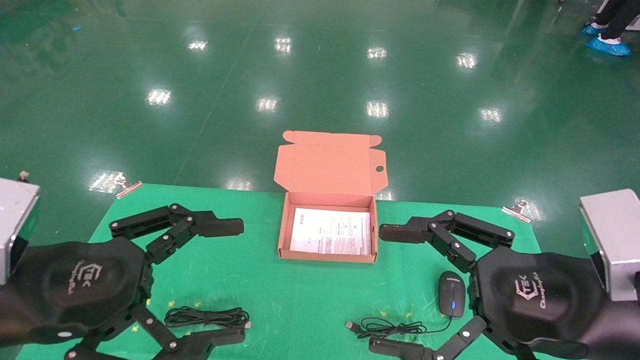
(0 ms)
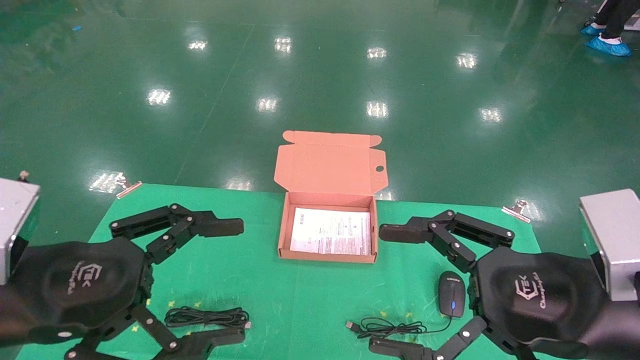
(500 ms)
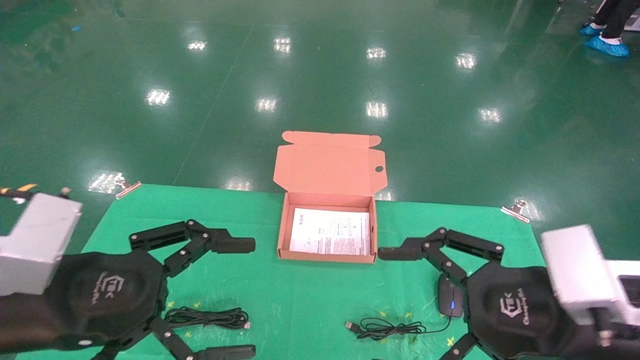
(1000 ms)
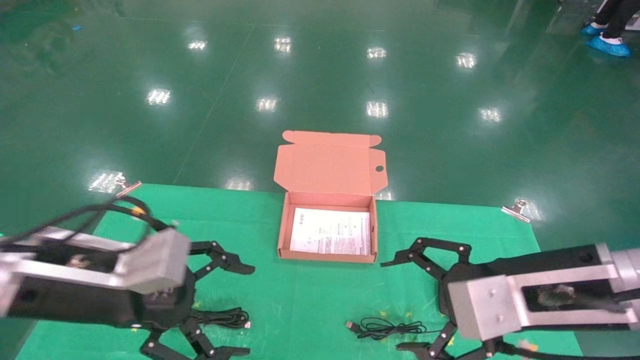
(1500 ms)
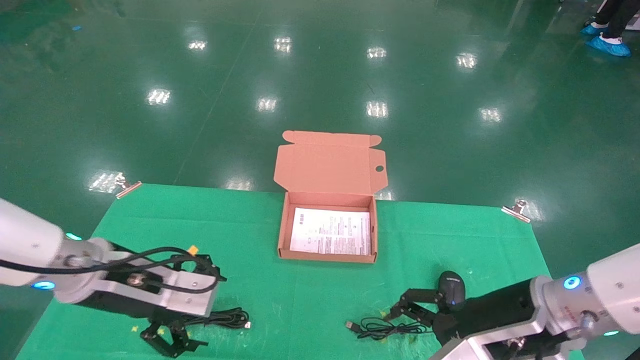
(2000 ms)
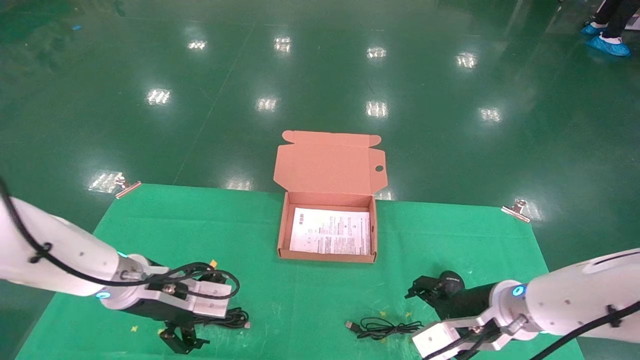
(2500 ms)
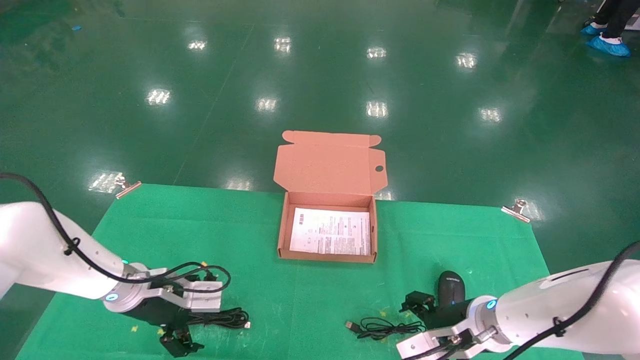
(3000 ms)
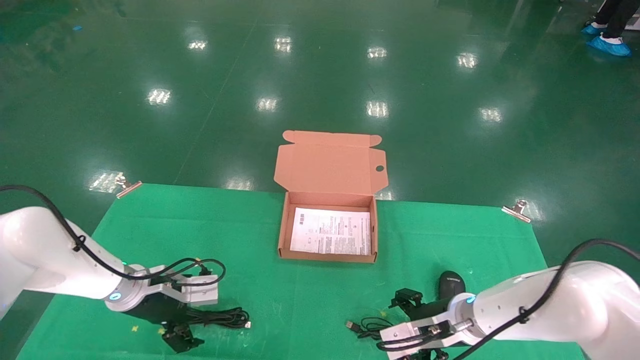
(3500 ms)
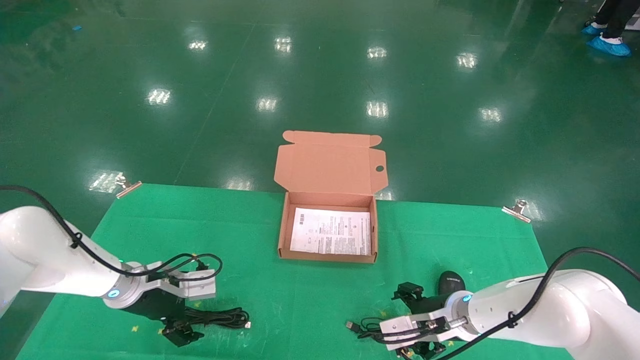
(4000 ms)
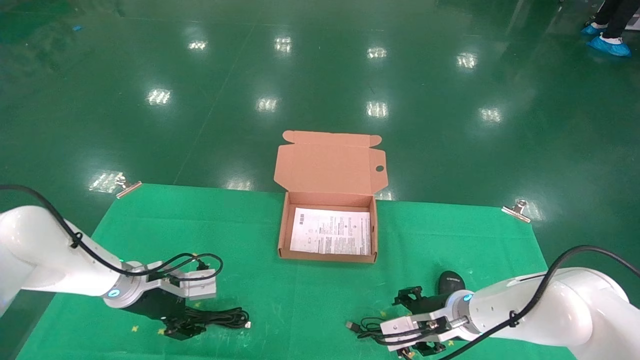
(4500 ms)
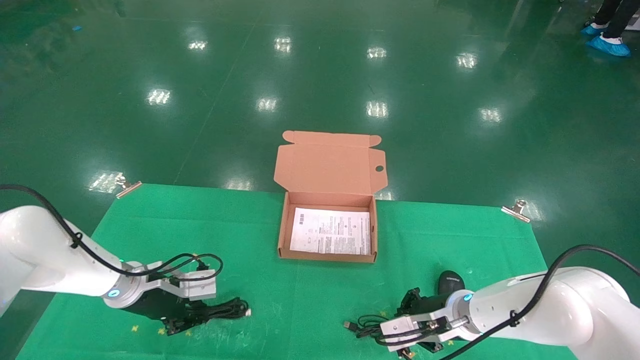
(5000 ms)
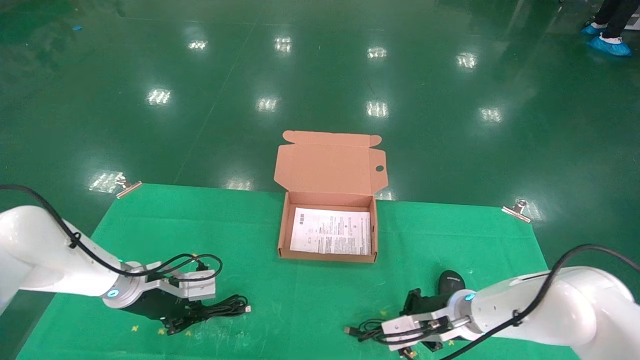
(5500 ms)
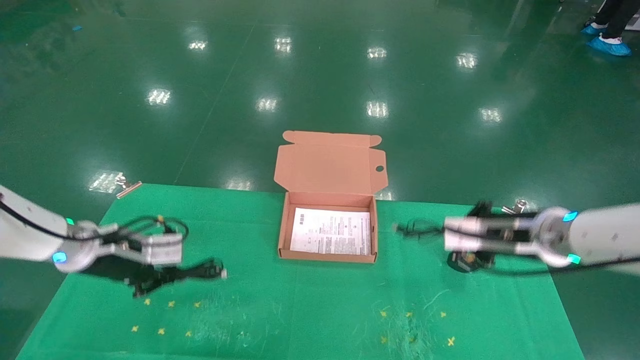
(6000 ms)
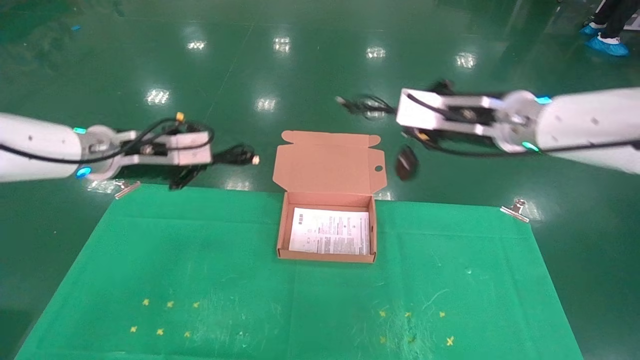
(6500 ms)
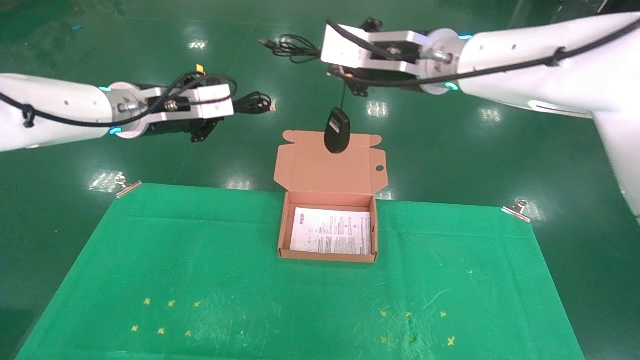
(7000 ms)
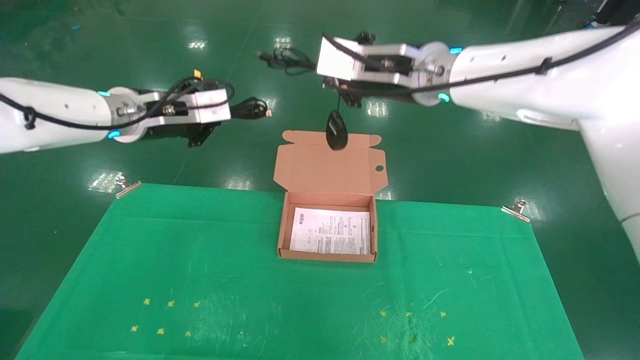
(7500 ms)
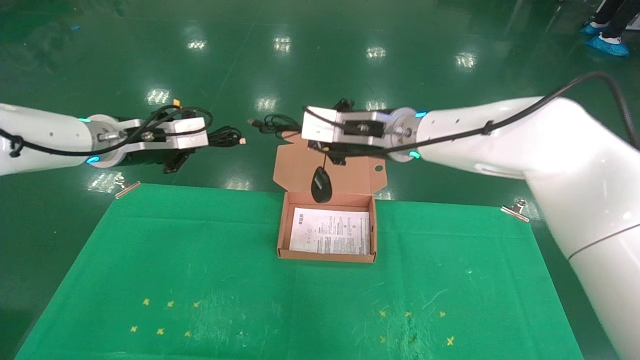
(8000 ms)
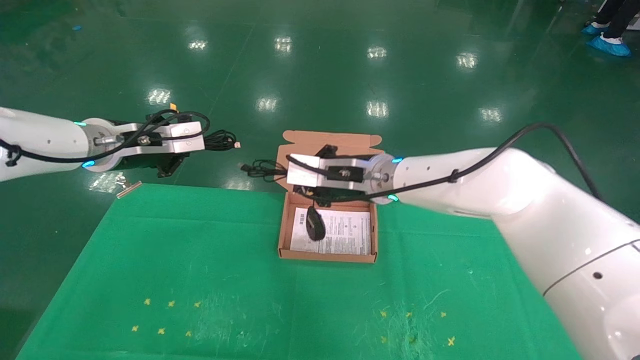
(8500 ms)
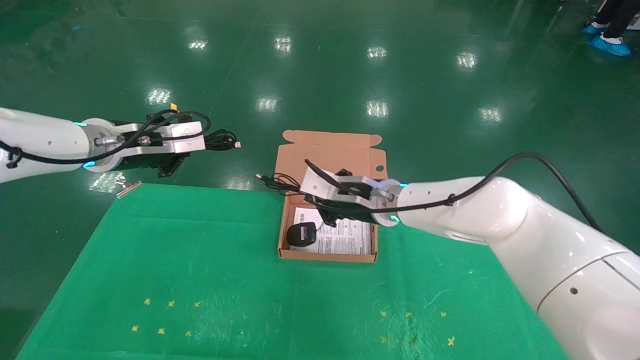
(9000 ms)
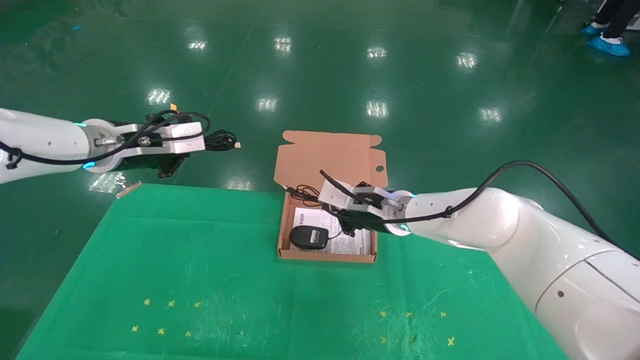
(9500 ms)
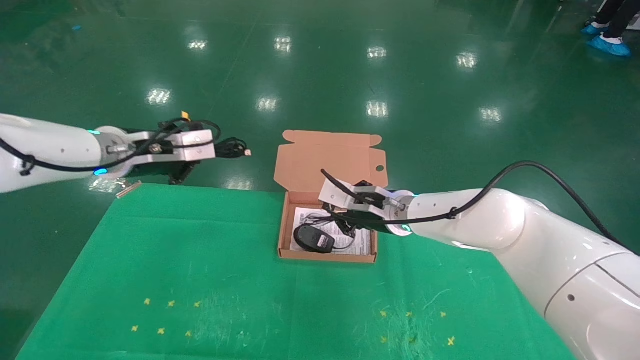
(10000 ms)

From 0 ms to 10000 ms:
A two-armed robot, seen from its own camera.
Task of the whole recording: grasp data cable left put into box grasp mouse right put into box.
Step, from 1000 ms to 5000 ms: Grab and pick up both the mouse and power cord from the accessory packaging area at the same time.
From 0 ms to 2000 ms: Both grippers travel together forward and downward, roughly 15 cm.
From 2000 ms to 4000 ms: The right gripper shifts approximately 15 cm forward and downward; the left gripper shifts roughly 15 cm forward, downward and to the left.
From 4000 ms to 6000 ms: The left gripper travels upward by about 10 cm, and closes up. Meanwhile the right gripper is displaced upward and to the right by about 15 cm, and closes its fingers.
From 6000 ms to 8000 ms: The left gripper heads upward, covering roughly 15 cm; the right gripper goes about 20 cm to the left and upward.
From 8000 ms to 10000 ms: The right gripper travels downward by roughly 15 cm.

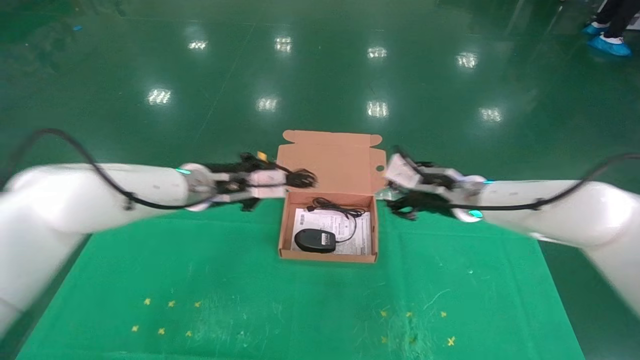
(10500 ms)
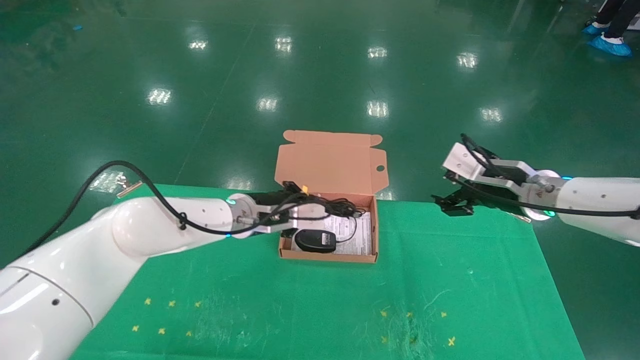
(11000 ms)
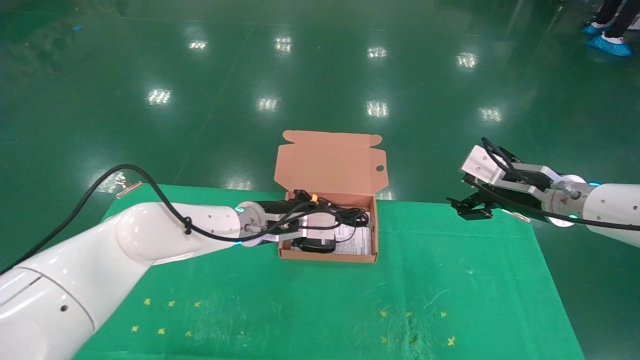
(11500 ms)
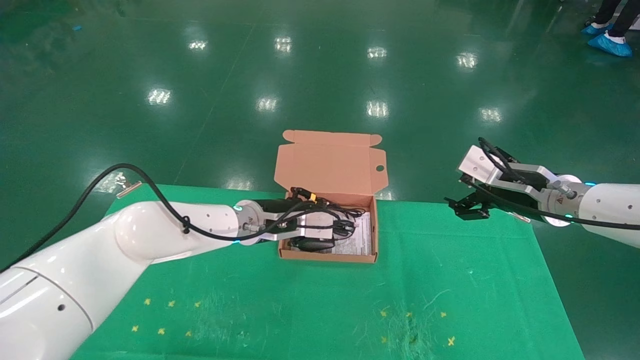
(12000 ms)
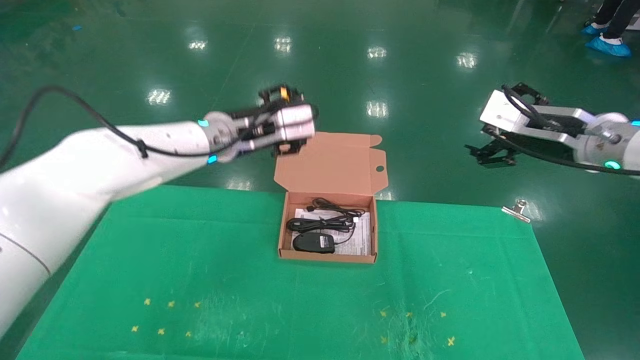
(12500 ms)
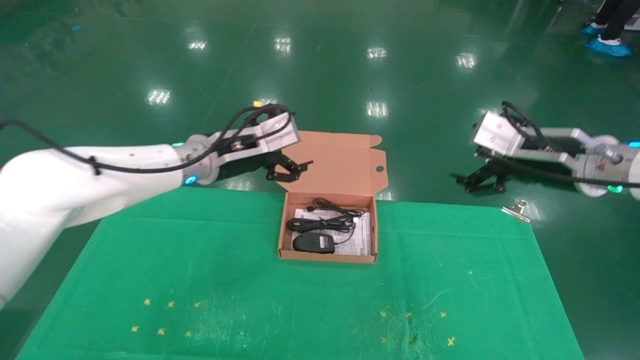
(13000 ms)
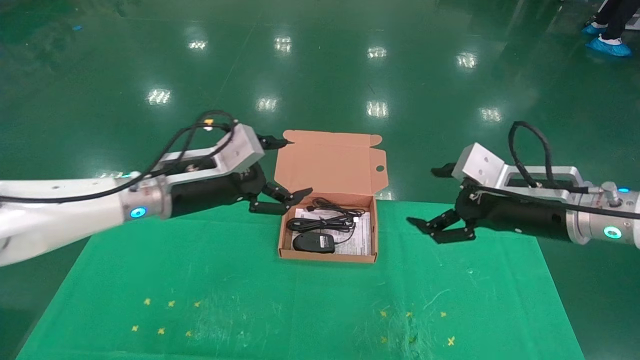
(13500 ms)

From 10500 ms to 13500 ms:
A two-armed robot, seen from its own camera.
Task of the whole recording: grasp data cable left put into box grasp mouse right put into box.
From 10500 ms to 12000 ms: The left gripper is displaced to the right and downward by about 10 cm. Meanwhile the right gripper moves to the right and backward, about 10 cm, and opens.
From 12000 ms to 13500 ms: The right gripper travels backward by roughly 5 cm, while the left gripper goes about 15 cm to the left, backward and upward, and opens.

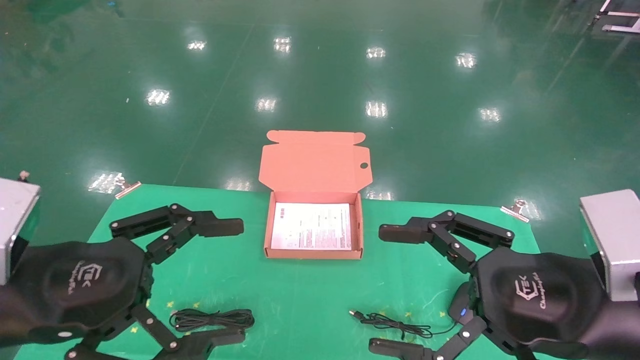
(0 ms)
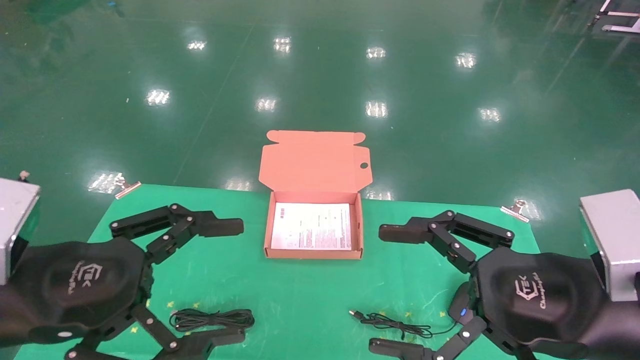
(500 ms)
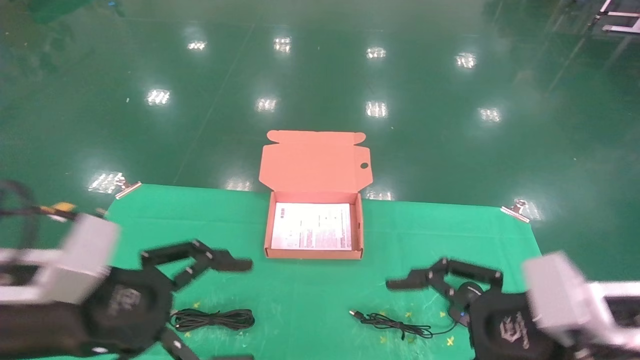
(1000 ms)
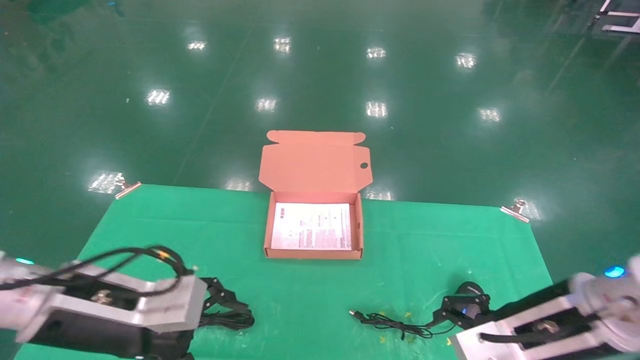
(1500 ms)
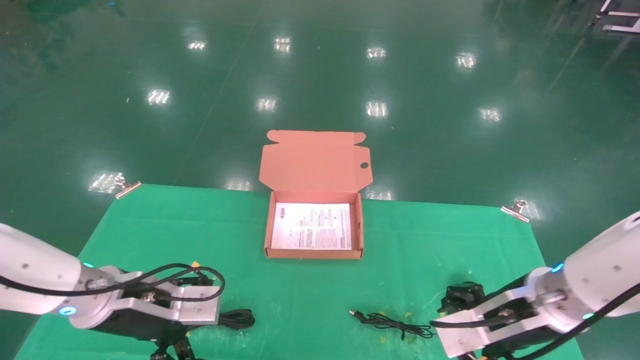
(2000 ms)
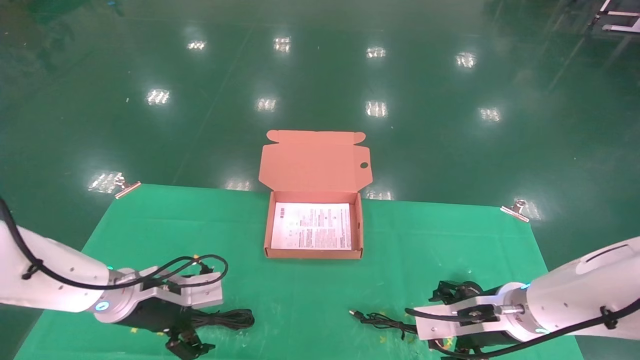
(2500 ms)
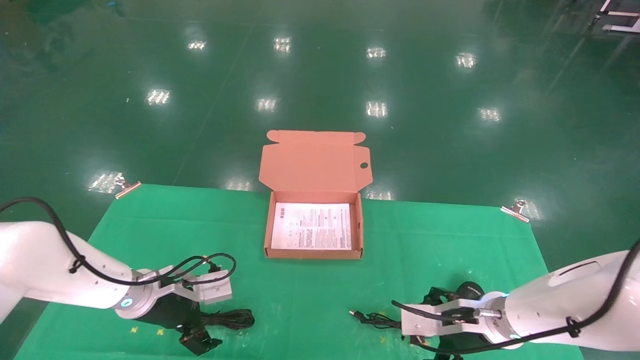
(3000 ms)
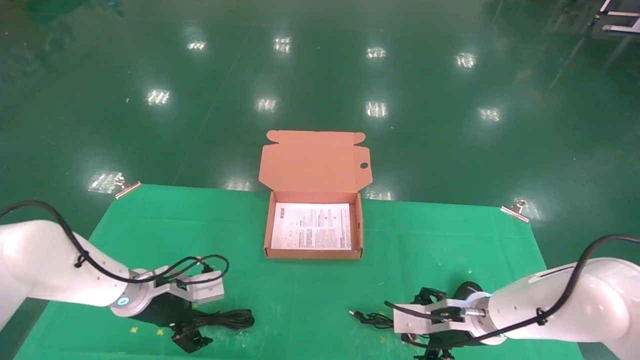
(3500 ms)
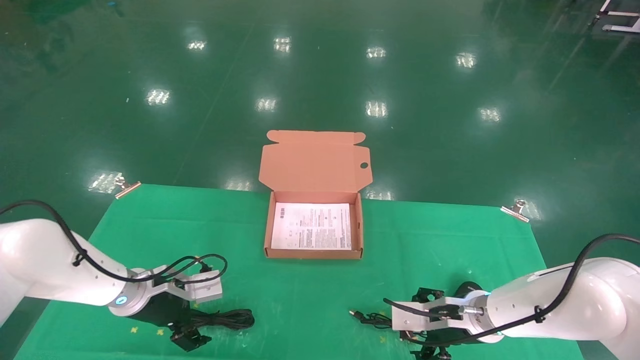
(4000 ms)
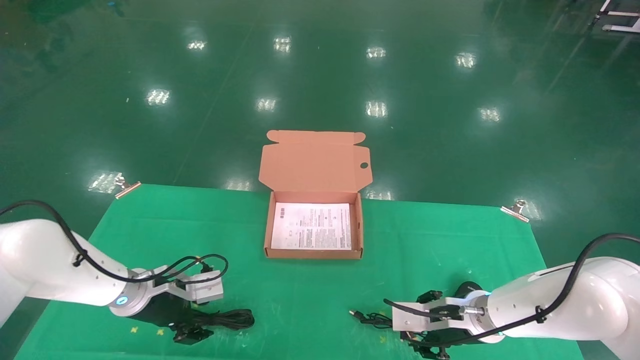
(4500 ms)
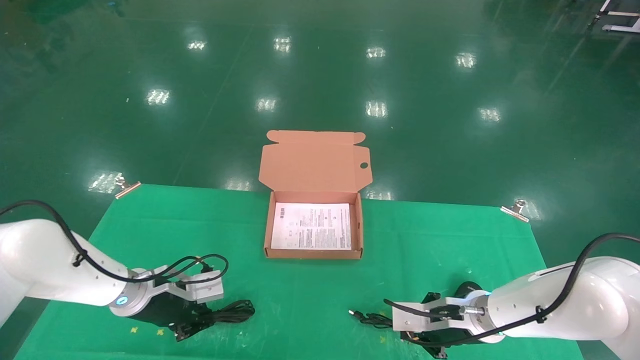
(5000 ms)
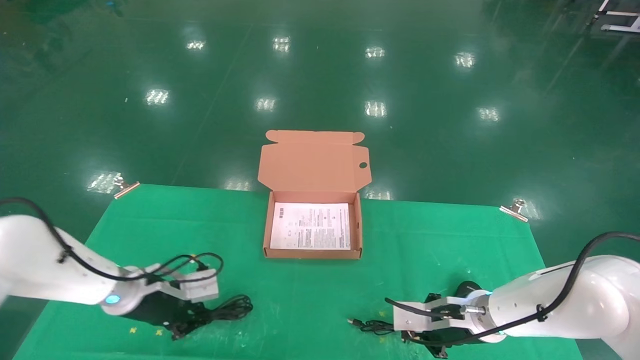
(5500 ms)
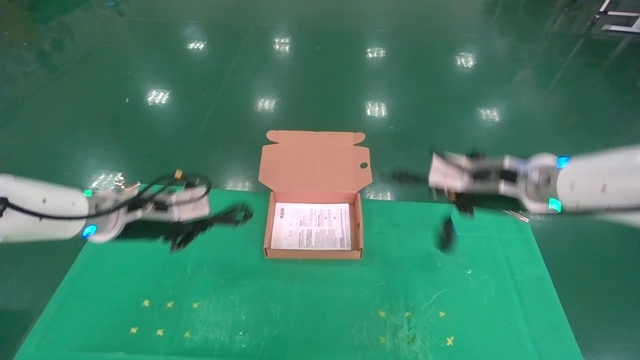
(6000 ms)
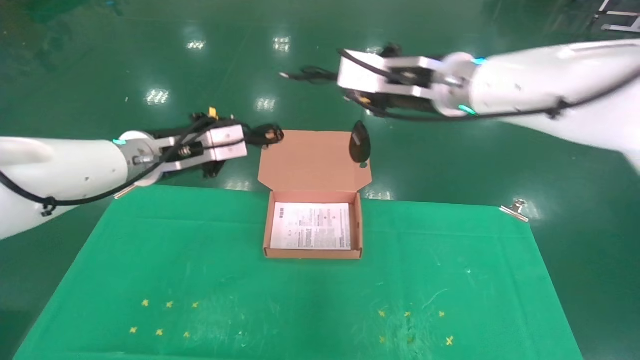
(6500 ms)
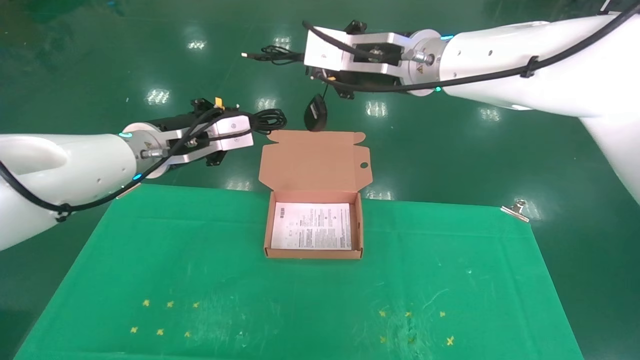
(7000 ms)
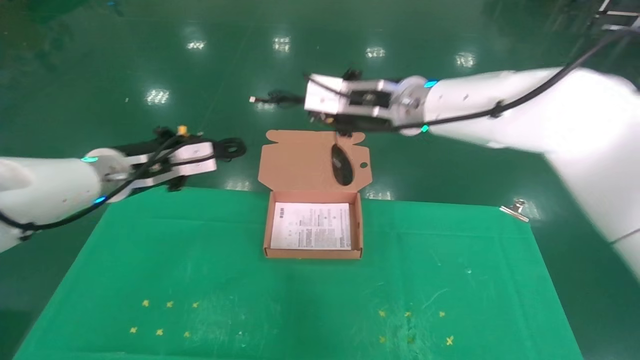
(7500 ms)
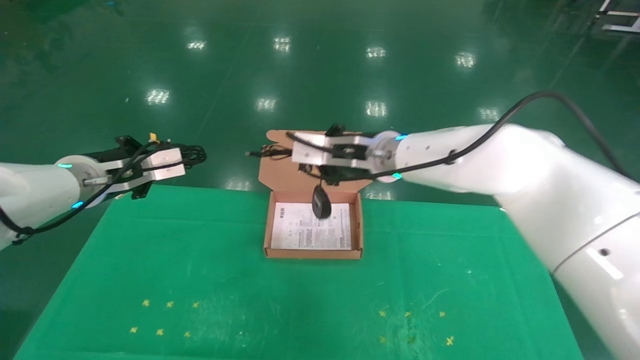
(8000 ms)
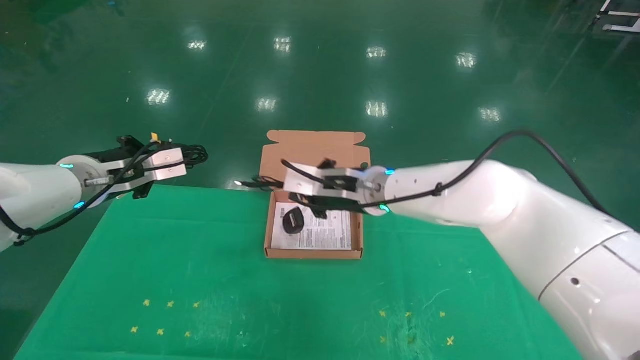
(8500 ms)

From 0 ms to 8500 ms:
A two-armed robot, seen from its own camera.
Task of the whole recording: grasp data cable left put into box grasp mouse right put into box.
Step, from 1000 ms to 5500 ms: Grab and pick up both the mouse and power cord from the accessory packaging area at the same time.
From 0 ms to 2000 ms: Both grippers move forward and downward, roughly 15 cm.
From 2000 ms to 4000 ms: The left gripper goes roughly 10 cm forward and downward; the right gripper shifts approximately 15 cm downward and forward.
From 4000 ms to 6500 ms: The left gripper is displaced upward by some 20 cm, and closes up; the right gripper shifts approximately 30 cm upward, and closes its fingers.
From 6500 ms to 8500 ms: The right gripper goes approximately 15 cm downward and to the left. Meanwhile the left gripper heads to the left, covering about 10 cm.
